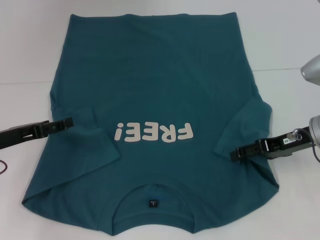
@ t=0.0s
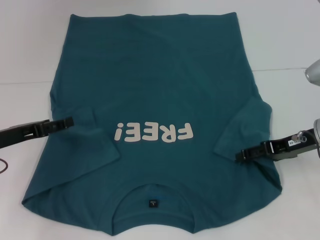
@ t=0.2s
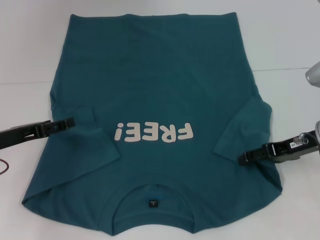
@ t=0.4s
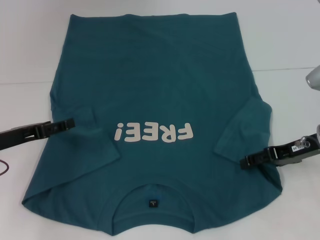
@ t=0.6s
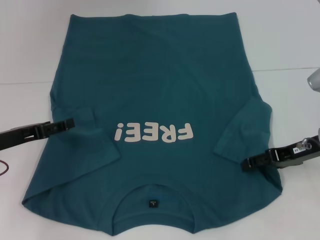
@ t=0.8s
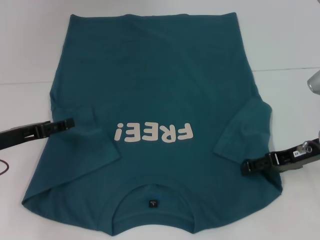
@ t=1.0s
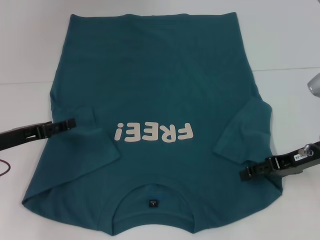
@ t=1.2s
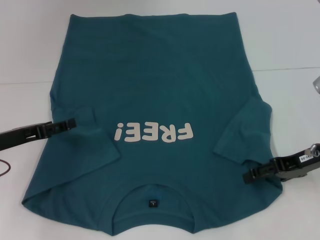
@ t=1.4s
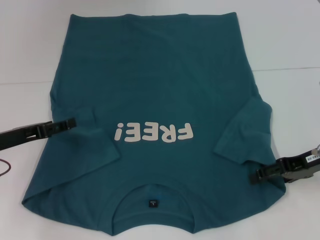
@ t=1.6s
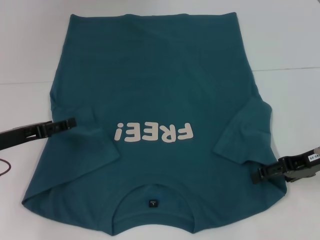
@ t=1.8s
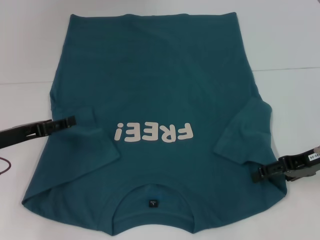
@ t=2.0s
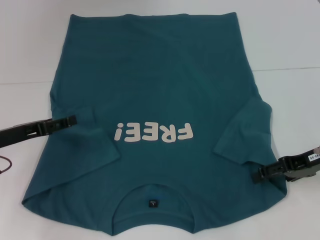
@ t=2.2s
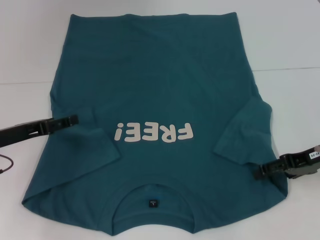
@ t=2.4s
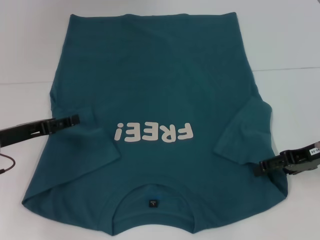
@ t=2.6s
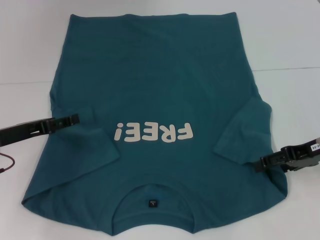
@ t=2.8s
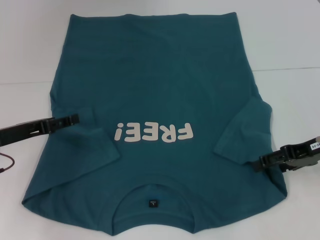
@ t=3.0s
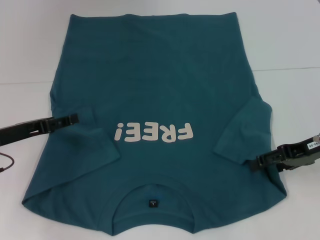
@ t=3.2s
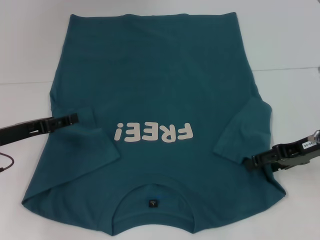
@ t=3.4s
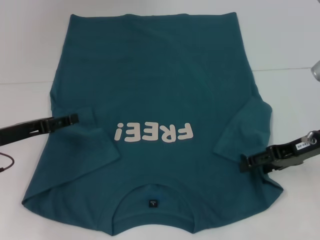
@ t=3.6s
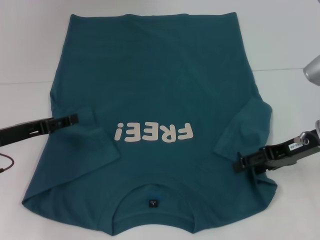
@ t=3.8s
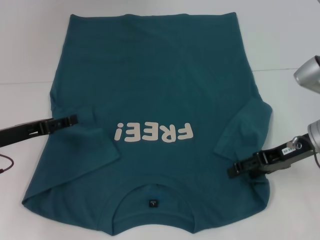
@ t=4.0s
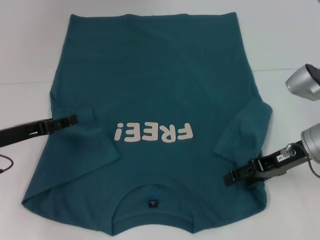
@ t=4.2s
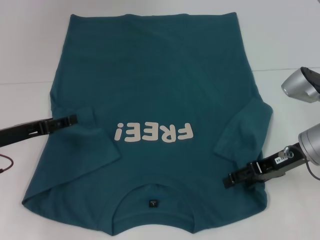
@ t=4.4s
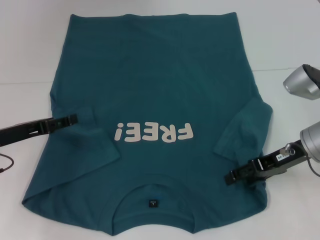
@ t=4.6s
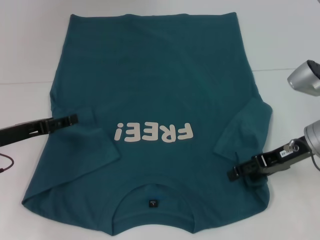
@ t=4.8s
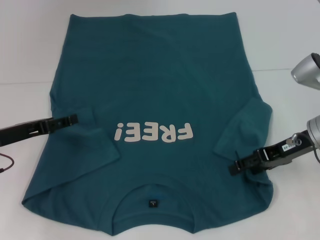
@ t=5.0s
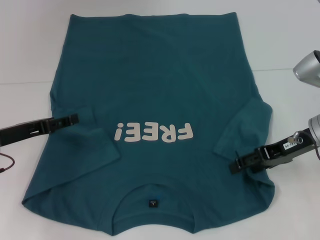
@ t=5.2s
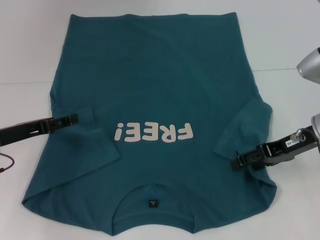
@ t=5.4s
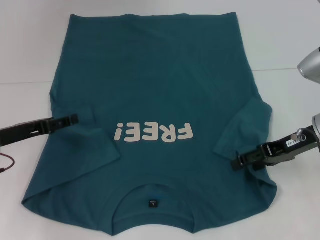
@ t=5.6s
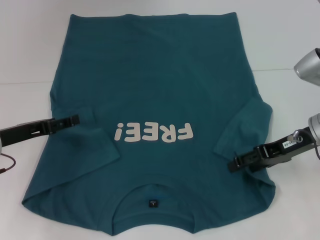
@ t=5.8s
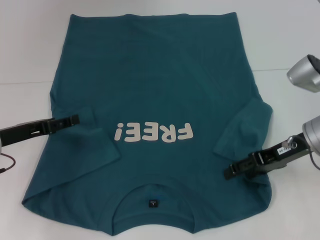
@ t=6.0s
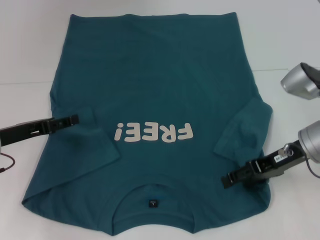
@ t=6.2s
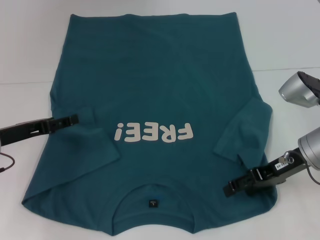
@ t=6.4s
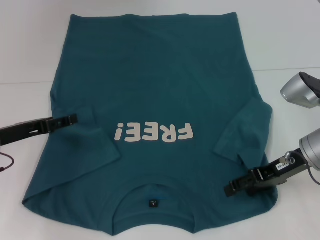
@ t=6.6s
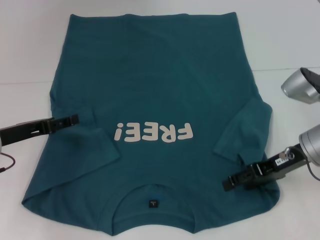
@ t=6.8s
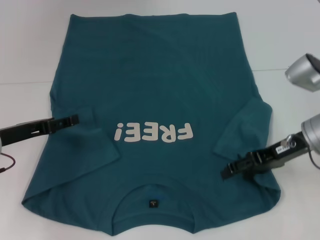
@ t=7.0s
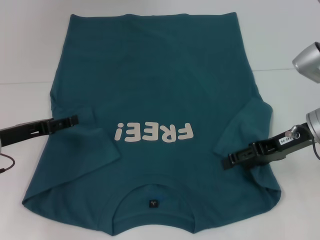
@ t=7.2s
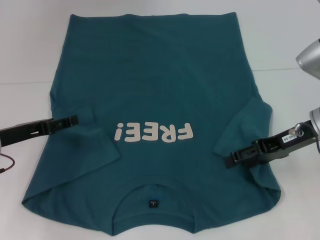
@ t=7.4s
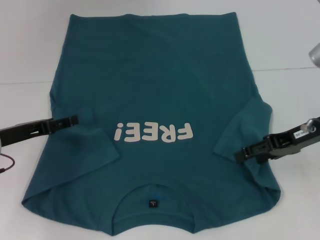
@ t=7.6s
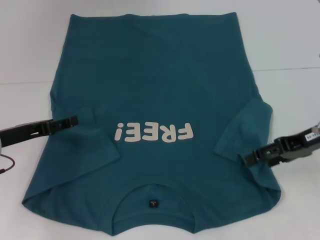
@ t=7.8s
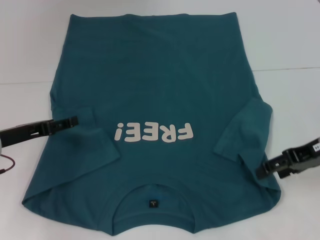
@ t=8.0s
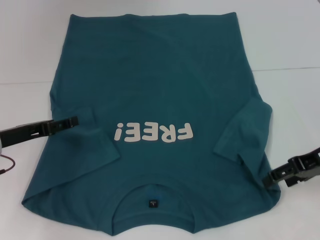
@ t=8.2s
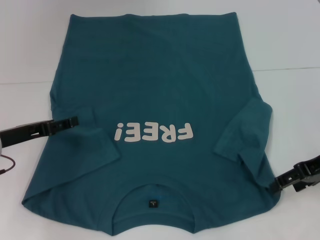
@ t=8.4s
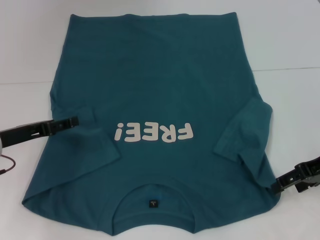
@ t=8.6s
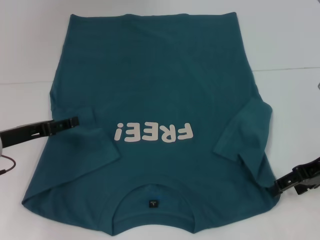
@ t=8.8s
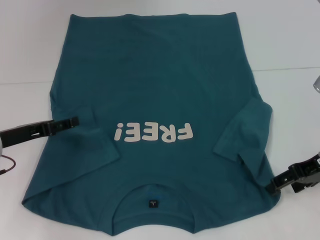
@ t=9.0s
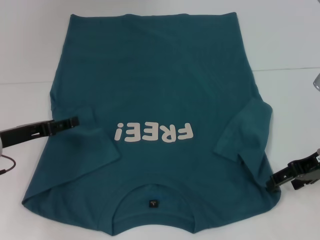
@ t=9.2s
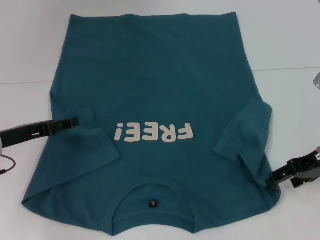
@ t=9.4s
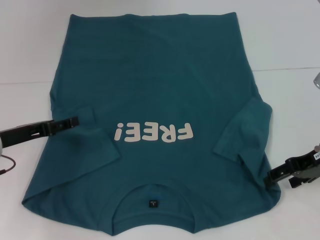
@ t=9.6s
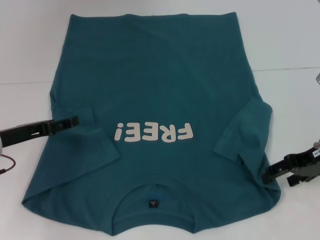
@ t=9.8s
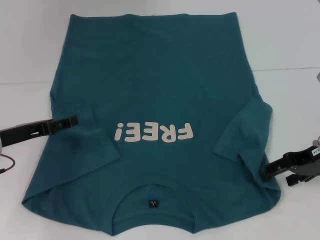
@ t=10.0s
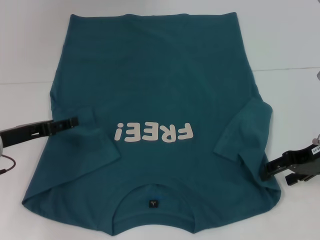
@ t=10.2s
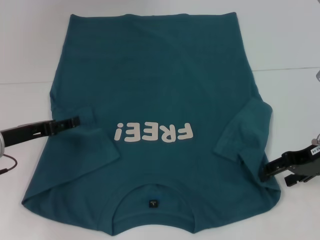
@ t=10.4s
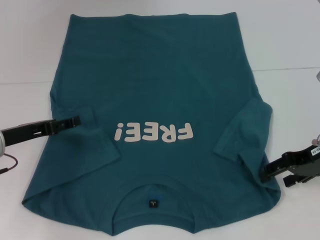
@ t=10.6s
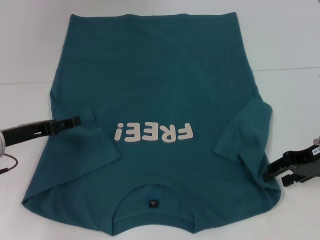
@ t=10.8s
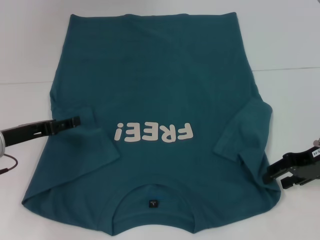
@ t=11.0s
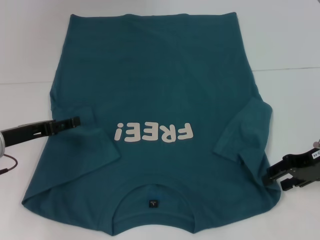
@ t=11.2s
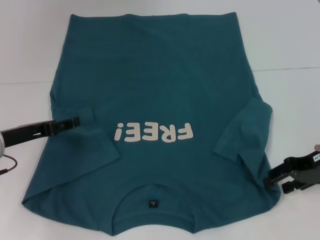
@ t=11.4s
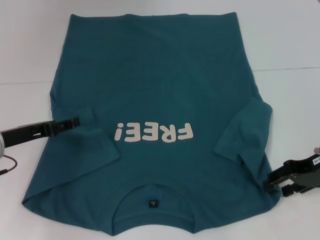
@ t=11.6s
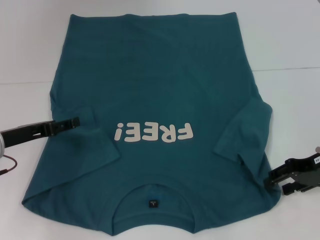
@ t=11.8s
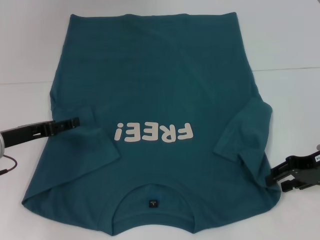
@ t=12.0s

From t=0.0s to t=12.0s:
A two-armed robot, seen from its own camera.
From t=0.0s to t=3.0s: The grippers move only a little.
From t=3.0s to t=4.4s: The right gripper shifts about 5 cm to the left.
From t=4.4s to t=7.6s: The grippers move only a little.
From t=7.6s to t=10.4s: There are only small adjustments of the grippers.
From t=10.4s to t=12.0s: There are only small adjustments of the grippers.

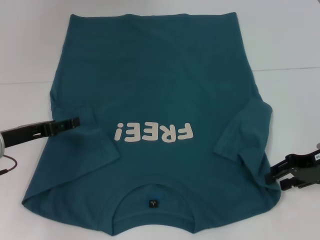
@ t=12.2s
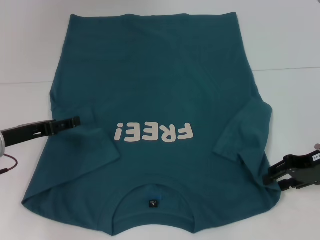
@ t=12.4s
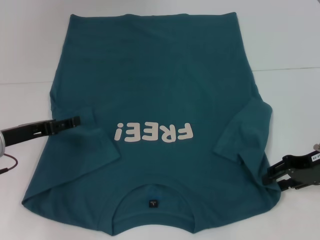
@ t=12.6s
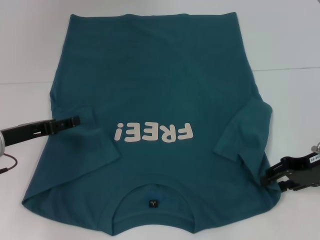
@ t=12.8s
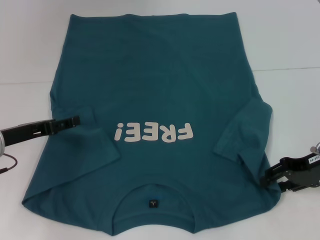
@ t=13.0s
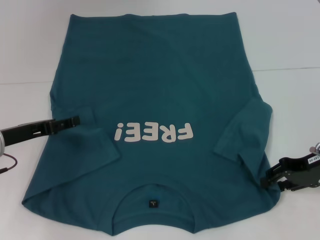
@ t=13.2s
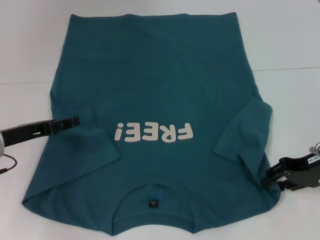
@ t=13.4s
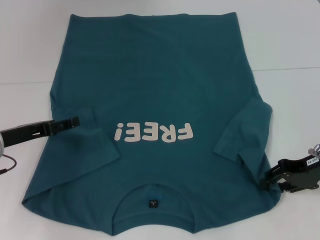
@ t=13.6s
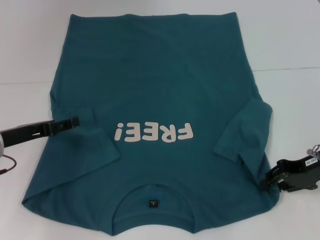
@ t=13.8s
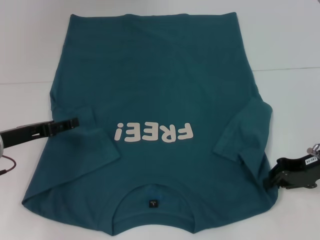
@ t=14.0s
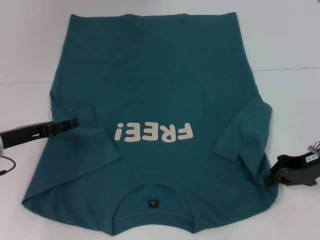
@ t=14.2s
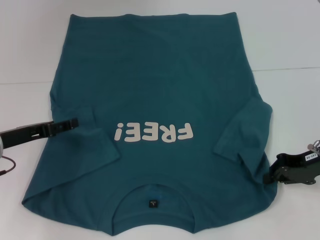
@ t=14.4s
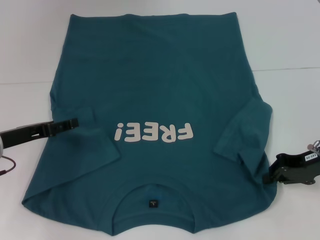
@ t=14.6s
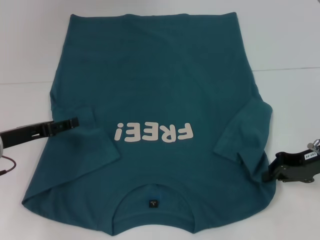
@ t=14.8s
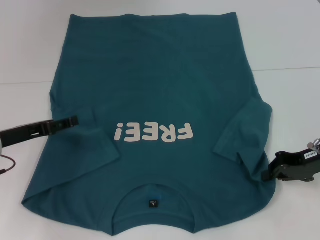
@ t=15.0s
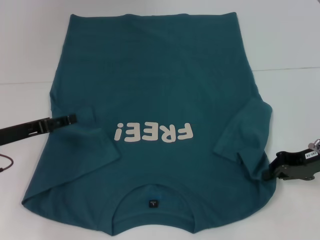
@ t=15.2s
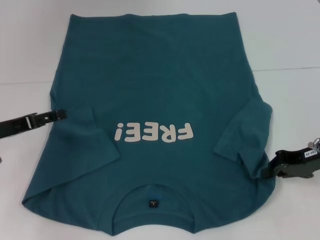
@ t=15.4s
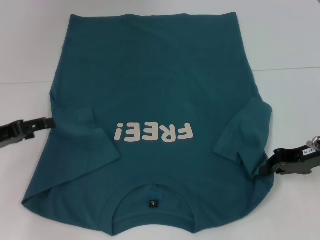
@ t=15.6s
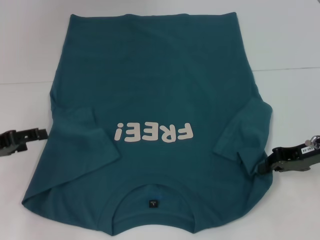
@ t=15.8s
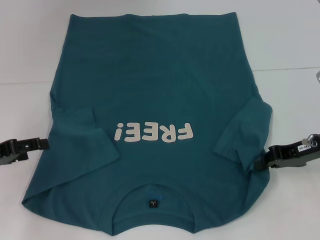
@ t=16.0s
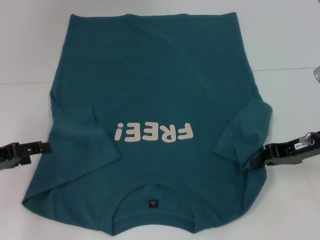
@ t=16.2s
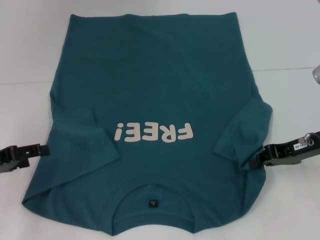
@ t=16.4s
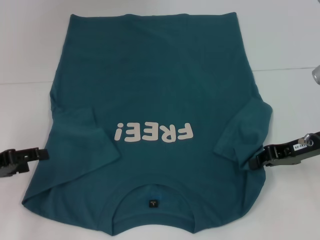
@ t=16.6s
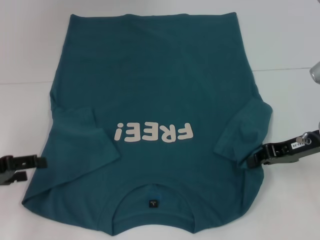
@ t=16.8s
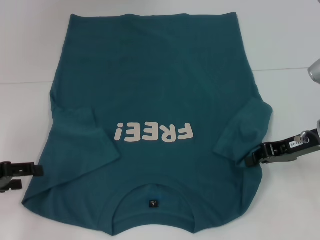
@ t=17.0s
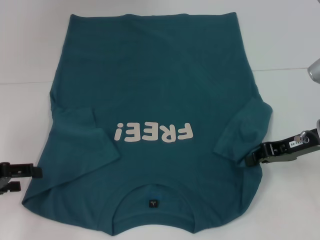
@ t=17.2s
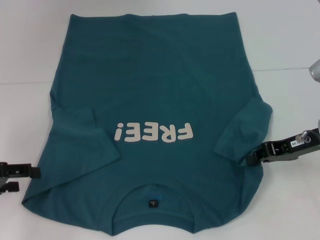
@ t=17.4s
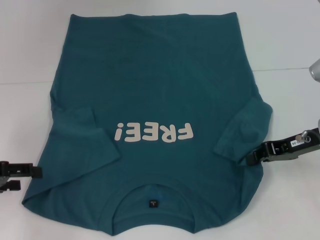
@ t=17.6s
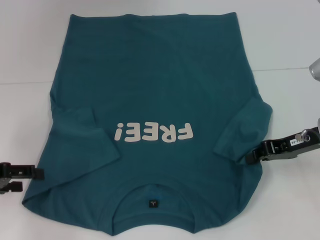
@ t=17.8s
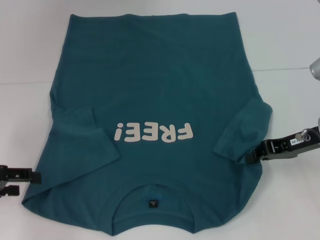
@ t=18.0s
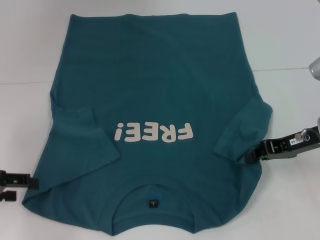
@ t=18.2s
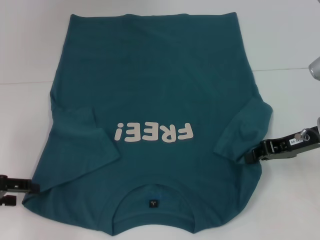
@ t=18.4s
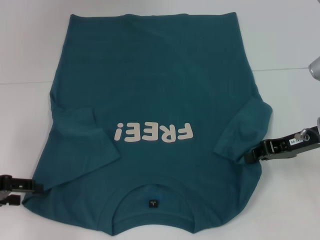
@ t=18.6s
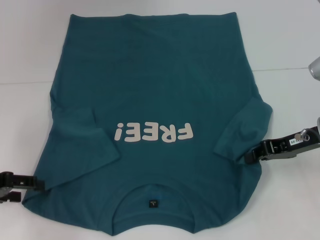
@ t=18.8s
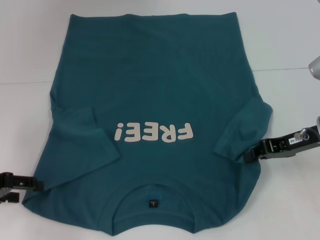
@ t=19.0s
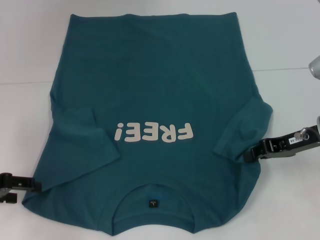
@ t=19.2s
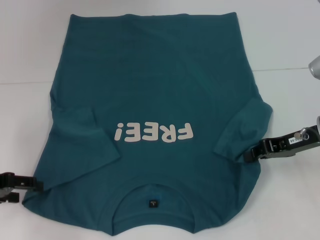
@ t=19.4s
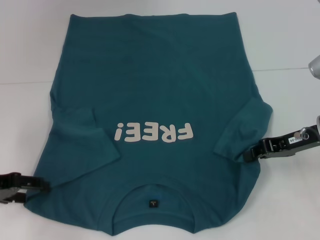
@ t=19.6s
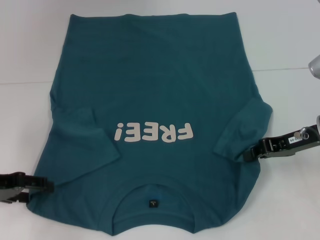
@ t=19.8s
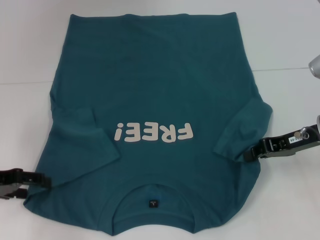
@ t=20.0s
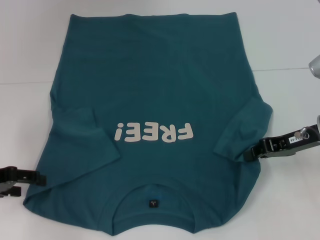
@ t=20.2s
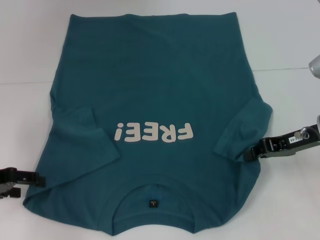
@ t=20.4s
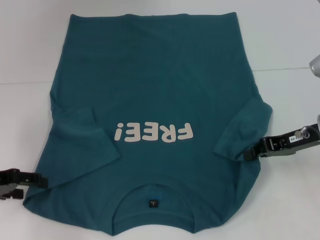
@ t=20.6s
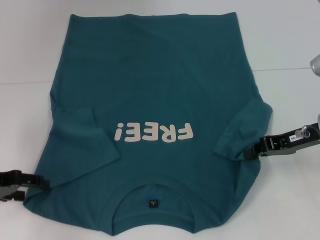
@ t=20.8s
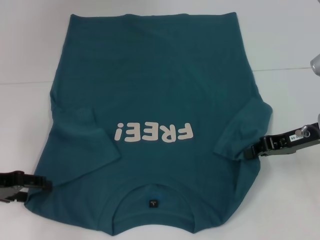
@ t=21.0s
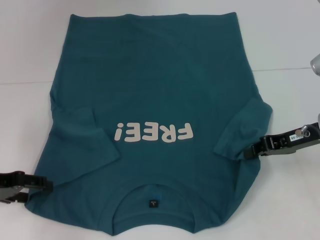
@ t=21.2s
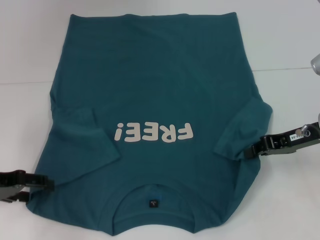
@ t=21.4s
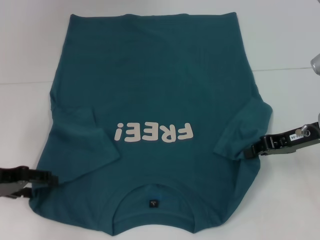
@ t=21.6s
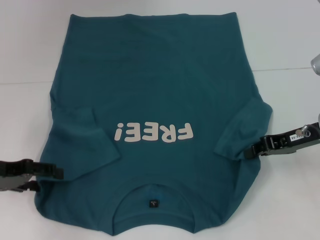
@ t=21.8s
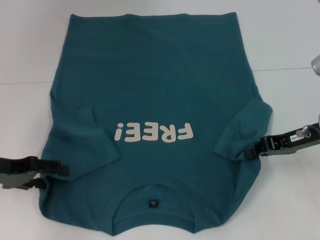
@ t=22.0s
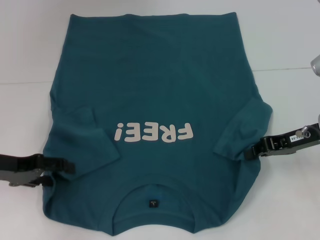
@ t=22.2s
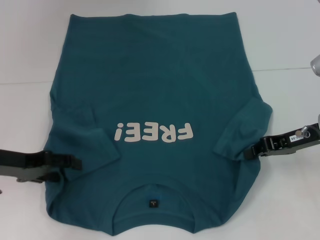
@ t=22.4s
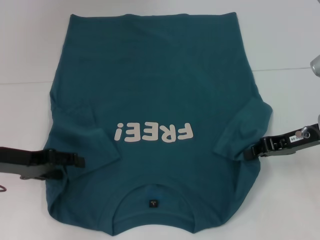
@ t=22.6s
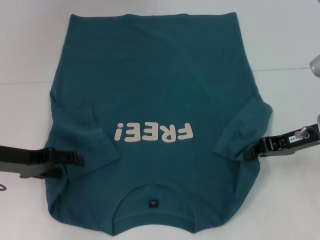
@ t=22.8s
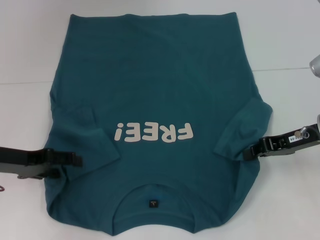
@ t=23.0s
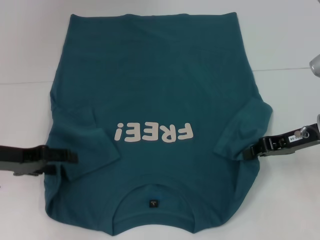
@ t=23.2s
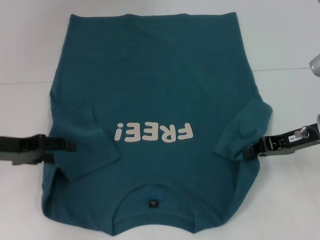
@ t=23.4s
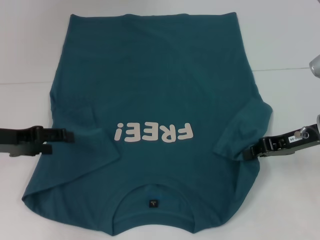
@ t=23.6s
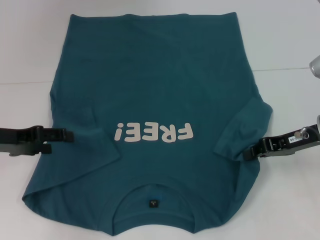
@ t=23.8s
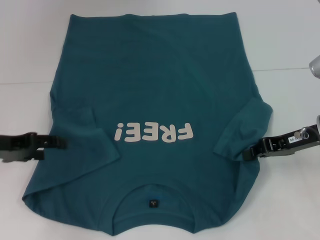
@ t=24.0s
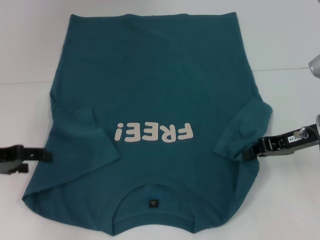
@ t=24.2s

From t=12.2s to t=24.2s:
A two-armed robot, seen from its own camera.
Step, from t=12.2s to t=15.0s: Grab the bottom right corner with your right hand.
From t=12.2s to t=13.8s: The grippers move only a little.
From t=13.8s to t=15.2s: The right gripper closes.
From t=15.2s to t=16.6s: The left gripper moves to the left, roughly 5 cm.
From t=16.6s to t=19.8s: There are only small adjustments of the grippers.
From t=19.8s to t=21.2s: Neither gripper changes place.
From t=21.2s to t=24.2s: The grippers move only a little.
